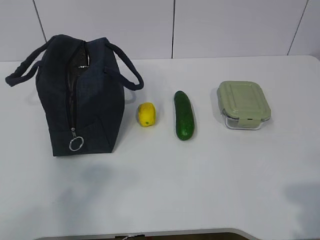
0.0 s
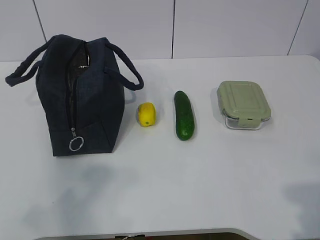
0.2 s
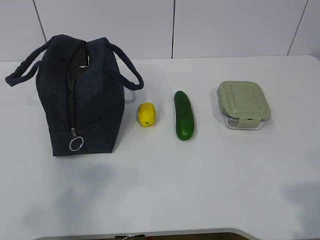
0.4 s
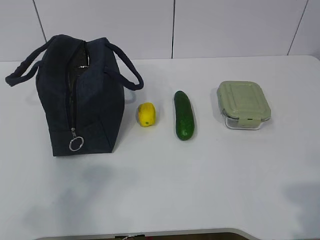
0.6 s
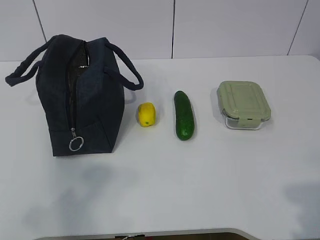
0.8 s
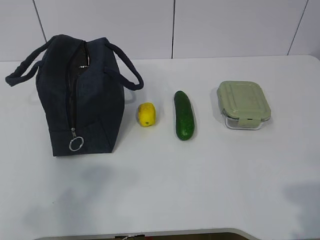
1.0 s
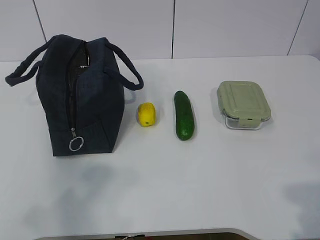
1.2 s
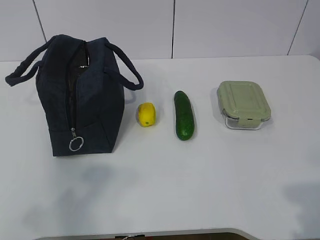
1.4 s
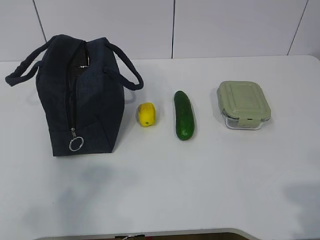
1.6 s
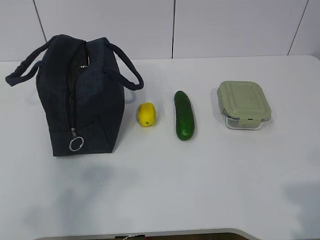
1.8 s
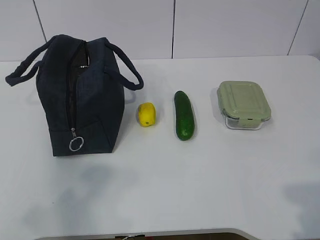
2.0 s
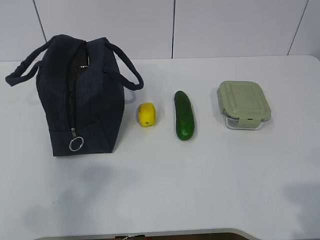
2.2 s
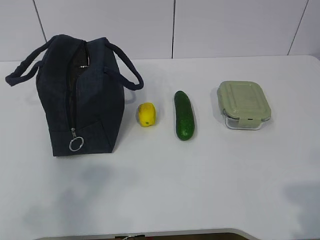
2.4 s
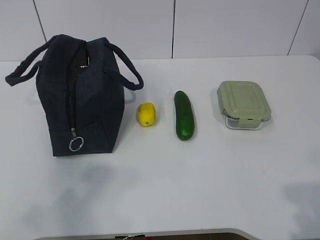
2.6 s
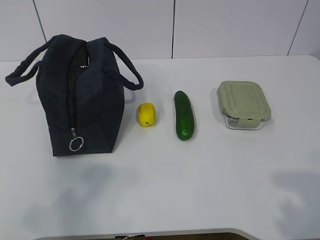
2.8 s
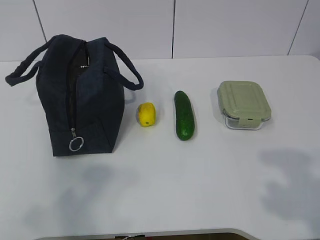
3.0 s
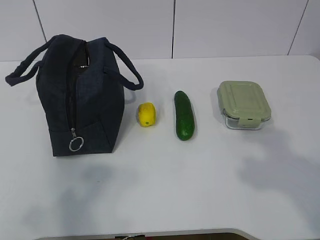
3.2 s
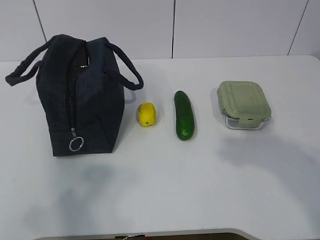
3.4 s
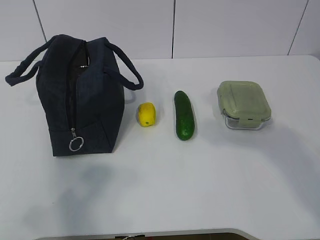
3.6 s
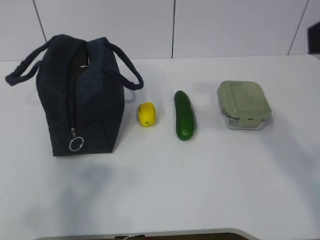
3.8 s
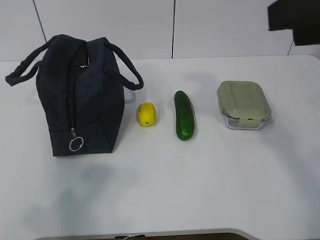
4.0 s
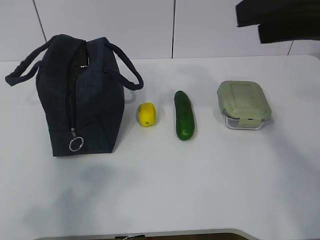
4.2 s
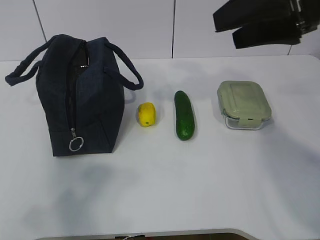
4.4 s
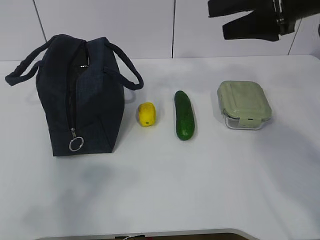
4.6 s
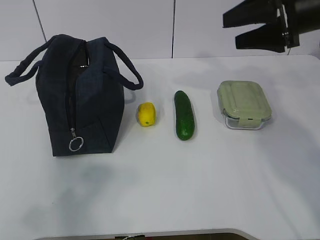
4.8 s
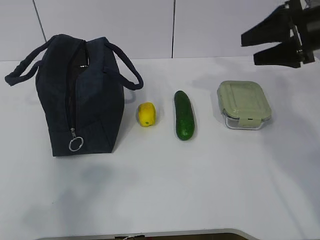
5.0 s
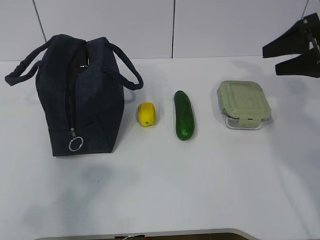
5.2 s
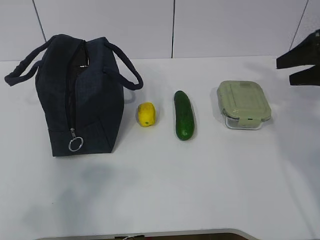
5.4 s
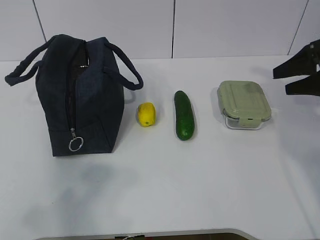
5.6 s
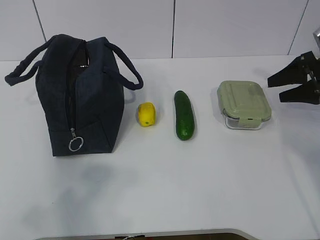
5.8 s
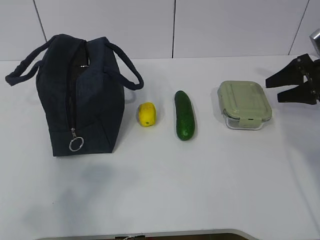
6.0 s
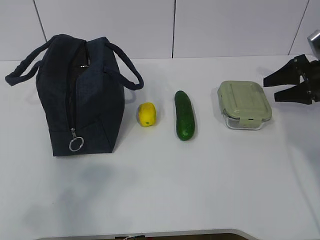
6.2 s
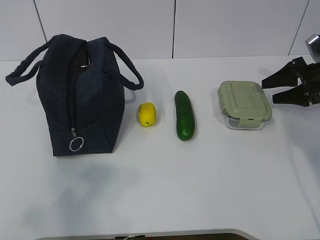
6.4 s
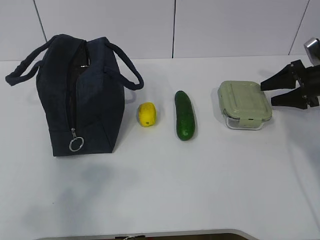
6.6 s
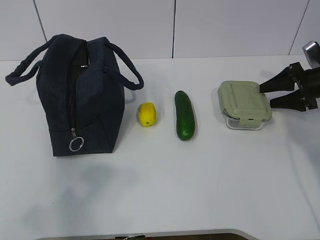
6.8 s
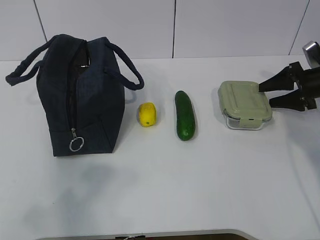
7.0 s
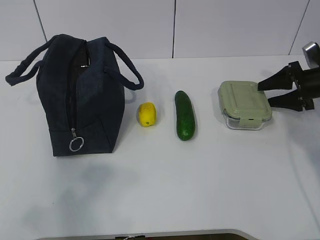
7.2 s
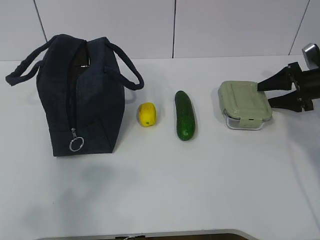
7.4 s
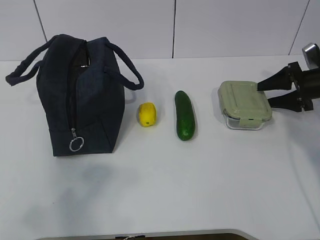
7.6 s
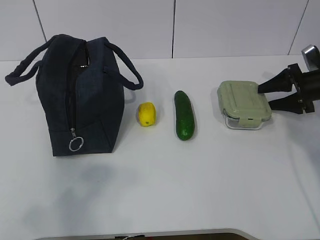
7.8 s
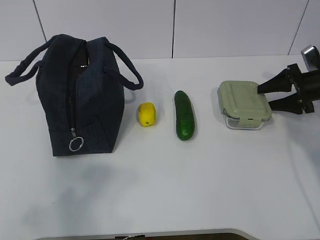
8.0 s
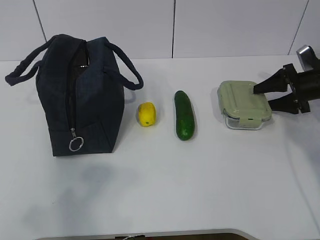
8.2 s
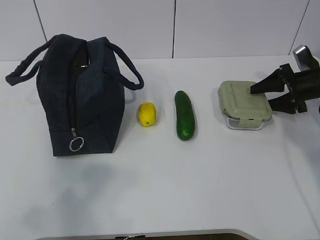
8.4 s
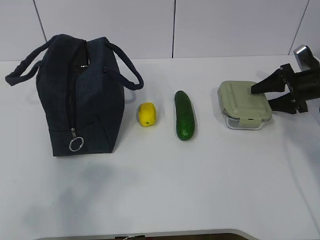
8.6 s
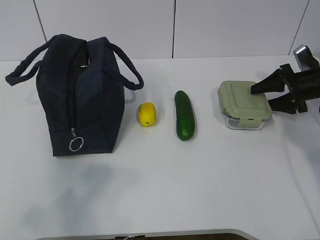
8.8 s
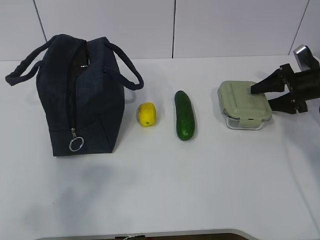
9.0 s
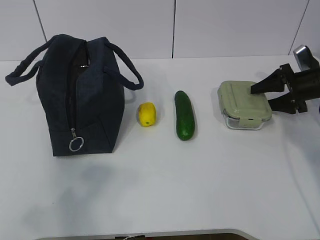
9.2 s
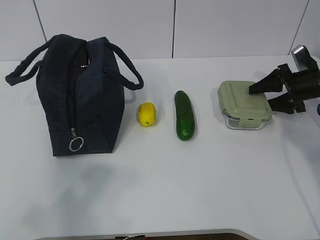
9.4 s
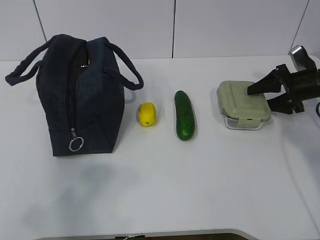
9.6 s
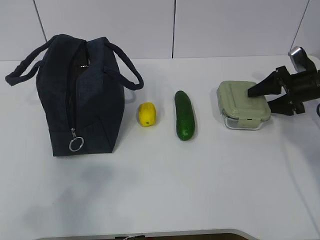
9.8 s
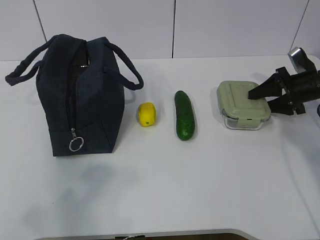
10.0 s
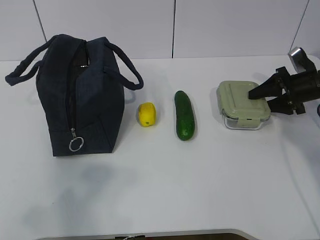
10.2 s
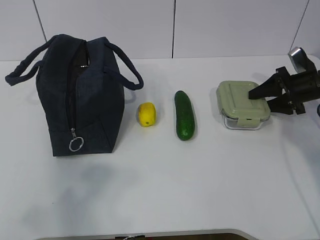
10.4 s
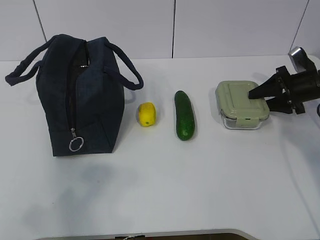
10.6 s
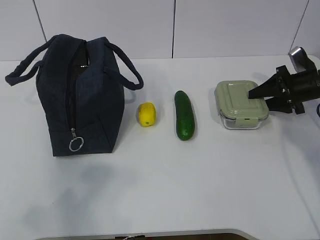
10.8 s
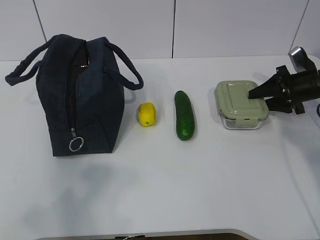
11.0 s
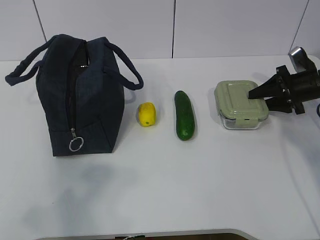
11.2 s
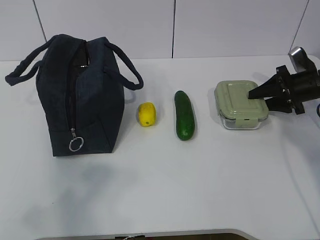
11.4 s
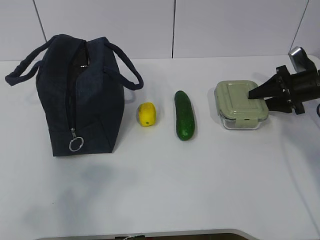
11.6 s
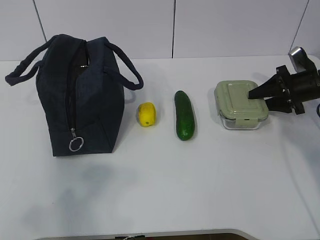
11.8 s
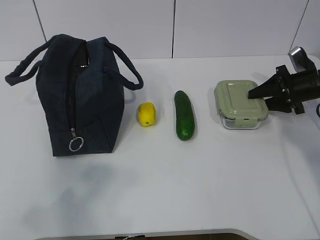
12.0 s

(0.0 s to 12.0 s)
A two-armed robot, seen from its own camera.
Step, 0.0 s - 9.8 s: Grab the lunch box with your right hand.
3.0 s - 4.4 s: The right gripper shifts roughly 25 cm forward.
4.4 s - 6.0 s: The right gripper goes approximately 30 cm downward, to the right and forward.
6.0 s - 9.0 s: The grippers make only small movements.
9.0 s - 12.0 s: Neither gripper changes place.

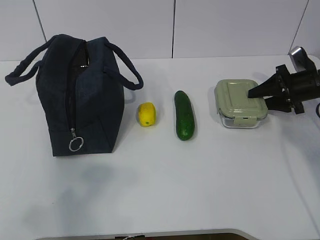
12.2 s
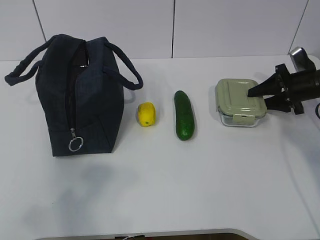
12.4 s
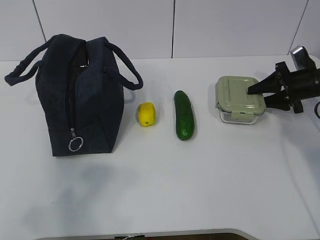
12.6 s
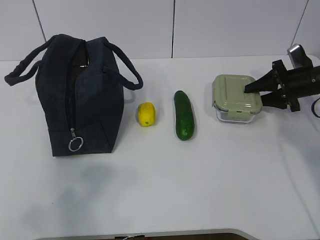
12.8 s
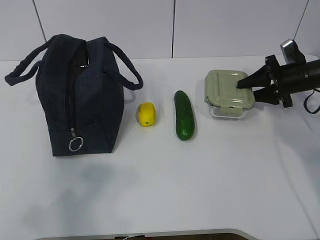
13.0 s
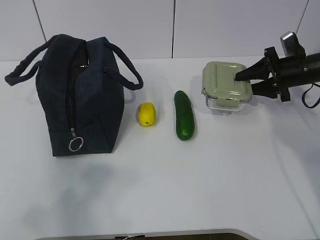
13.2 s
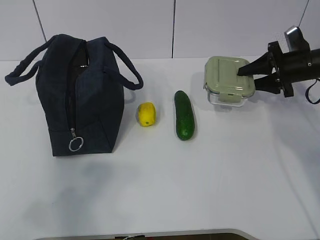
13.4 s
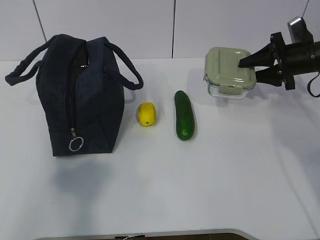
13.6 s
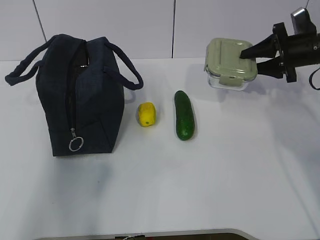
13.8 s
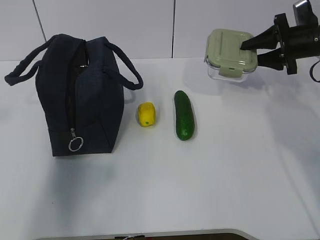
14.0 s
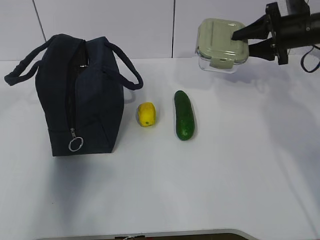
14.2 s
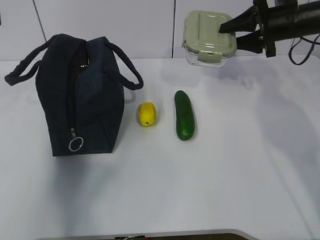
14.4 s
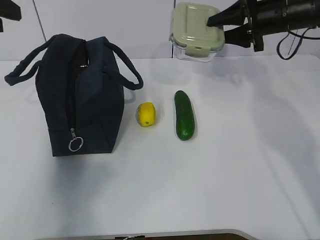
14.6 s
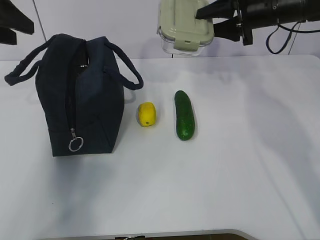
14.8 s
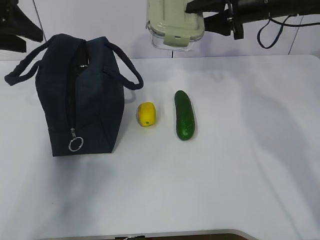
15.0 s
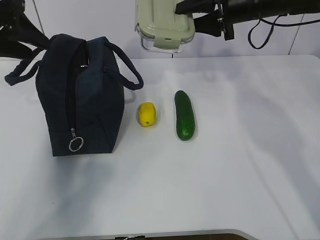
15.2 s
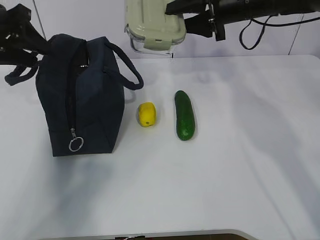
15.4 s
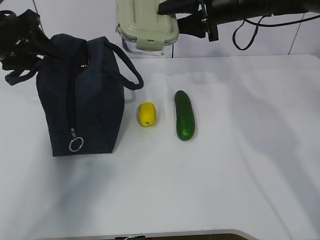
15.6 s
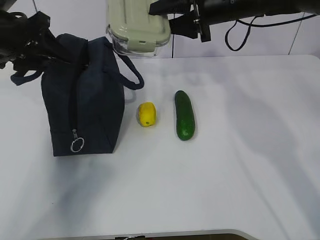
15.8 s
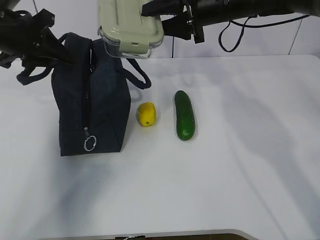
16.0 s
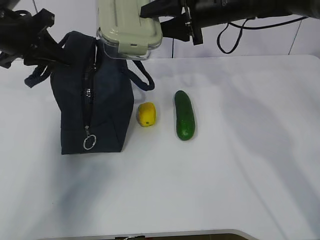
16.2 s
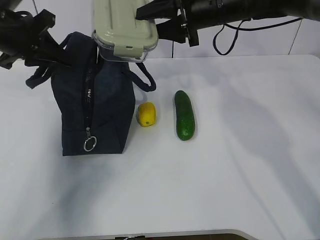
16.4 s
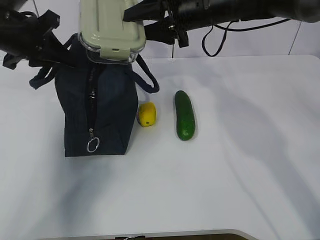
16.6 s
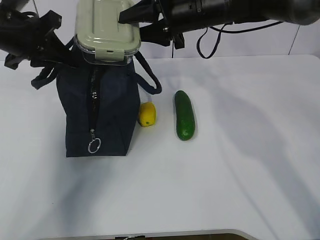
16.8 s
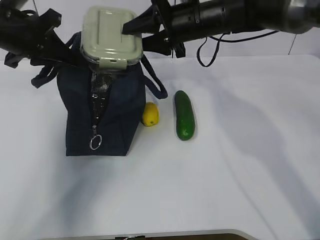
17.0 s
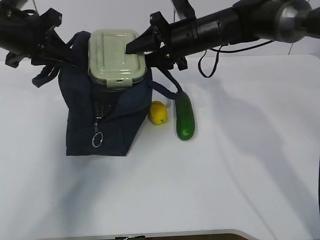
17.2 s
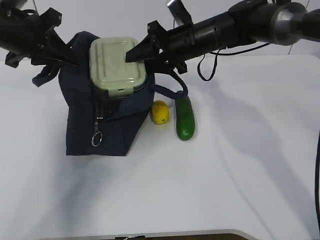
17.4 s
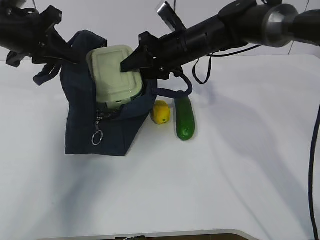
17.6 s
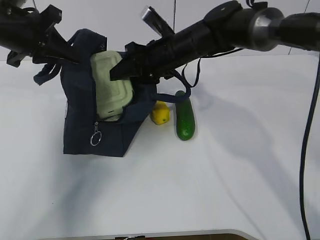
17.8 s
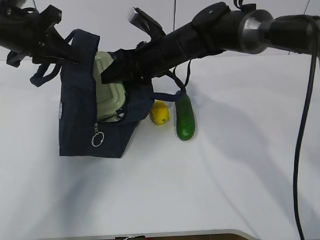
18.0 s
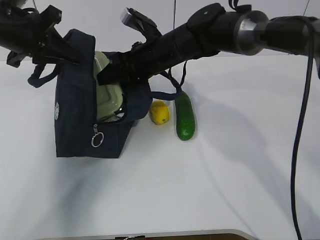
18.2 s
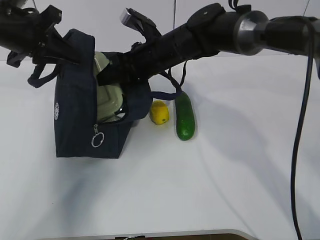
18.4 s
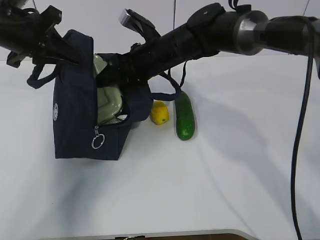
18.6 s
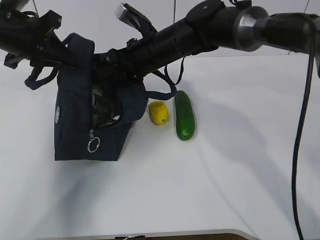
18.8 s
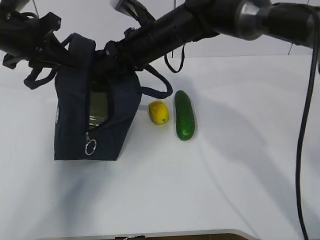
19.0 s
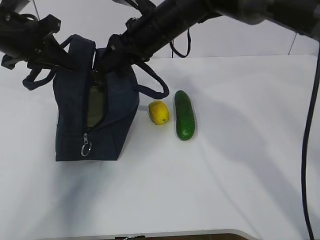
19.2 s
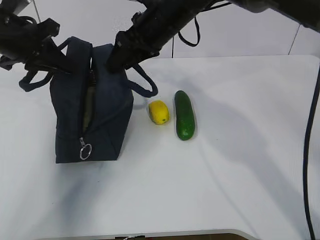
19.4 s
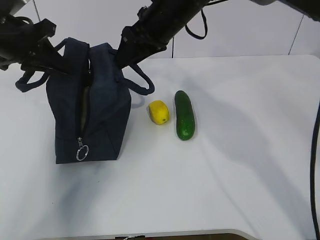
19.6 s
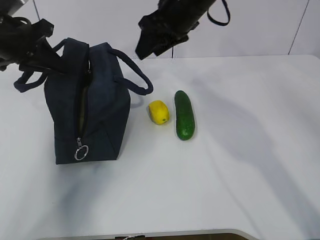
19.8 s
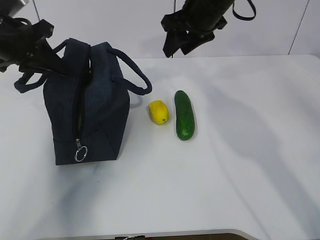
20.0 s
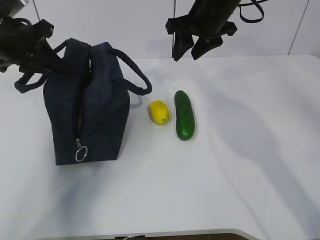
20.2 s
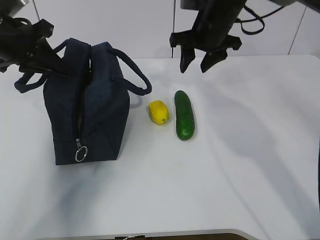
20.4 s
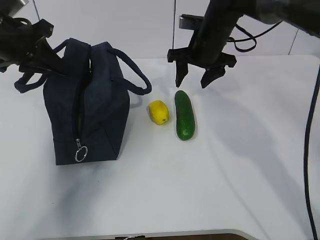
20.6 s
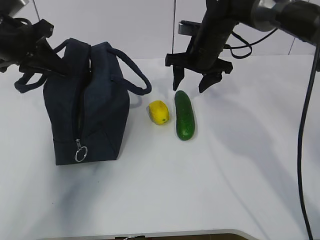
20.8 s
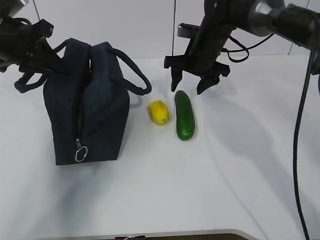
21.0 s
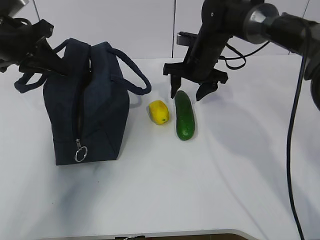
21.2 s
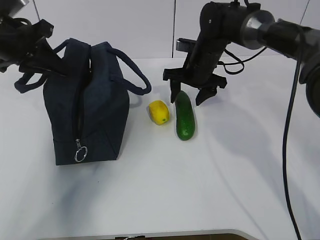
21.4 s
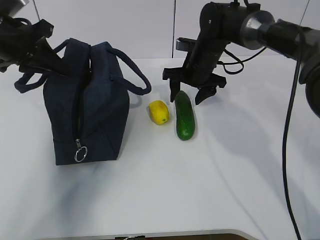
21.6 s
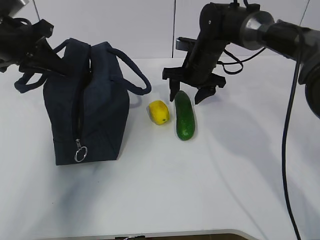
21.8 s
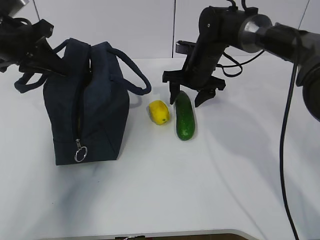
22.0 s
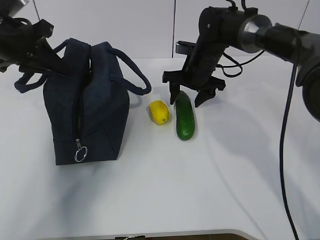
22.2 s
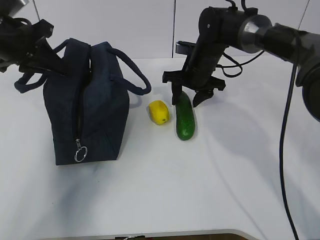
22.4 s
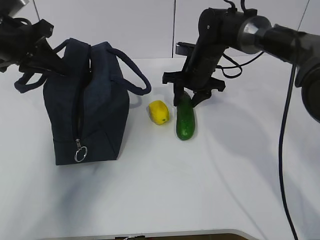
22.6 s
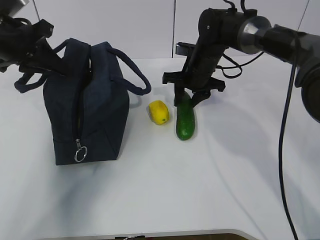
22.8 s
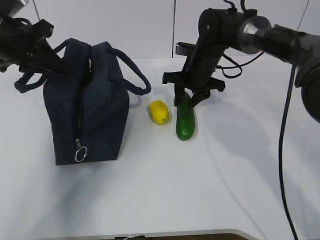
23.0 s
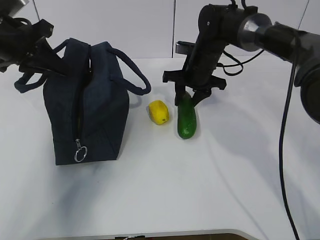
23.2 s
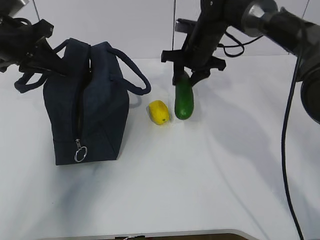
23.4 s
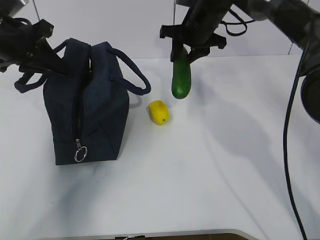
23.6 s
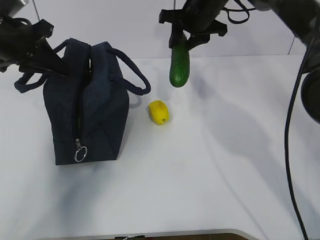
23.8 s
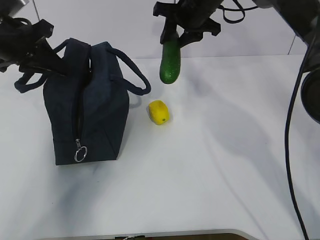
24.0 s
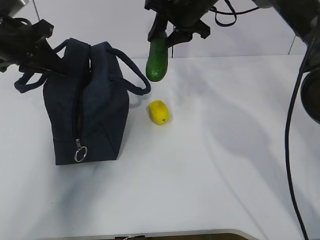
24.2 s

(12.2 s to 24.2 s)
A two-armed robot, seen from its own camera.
Step, 14.0 s - 15.8 s: Place it into the bag with your right hand.
Step, 16.0 s - 19.0 s: Grab the cucumber with your right hand.
Step, 19.4 s - 22.0 s: Place it into the bag with your right hand.
12.2 s - 13.8 s: The right gripper is displaced upward by some 5 cm; the left gripper goes about 10 cm forward and upward.
13.8 s - 15.2 s: The right gripper moves to the left and upward, about 15 cm, while the left gripper shifts about 30 cm forward.
15.2 s - 16.6 s: The right gripper heads to the left, covering some 10 cm. Meanwhile the left gripper ends up about 5 cm from where it was, and closes.
16.6 s - 18.2 s: The right gripper travels to the left and downward by some 10 cm.
18.2 s - 19.8 s: The right gripper travels upward and to the right by some 10 cm.
19.8 s - 21.2 s: The right gripper moves downward, roughly 10 cm.
21.2 s - 22.6 s: There are only small adjustments of the grippers.
22.6 s - 24.2 s: The right gripper goes about 15 cm upward.
